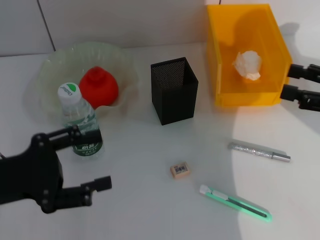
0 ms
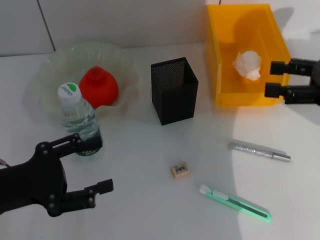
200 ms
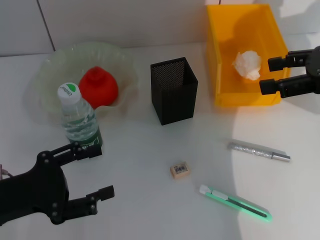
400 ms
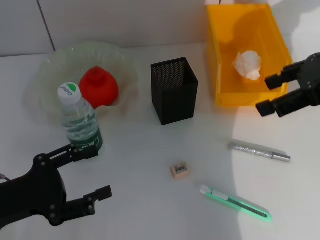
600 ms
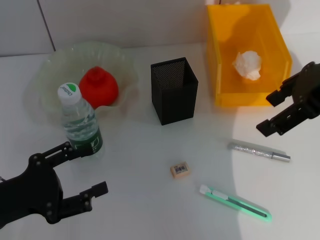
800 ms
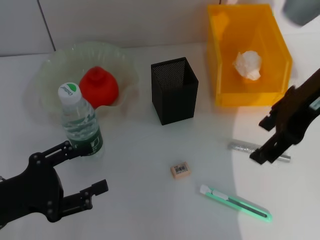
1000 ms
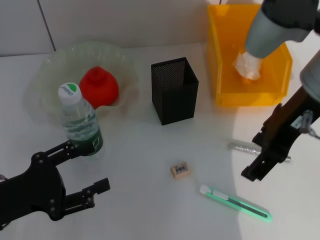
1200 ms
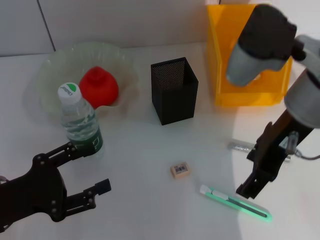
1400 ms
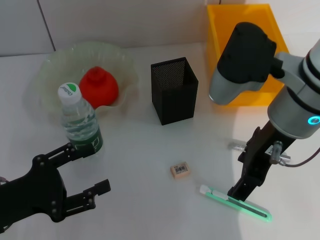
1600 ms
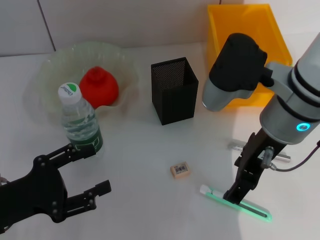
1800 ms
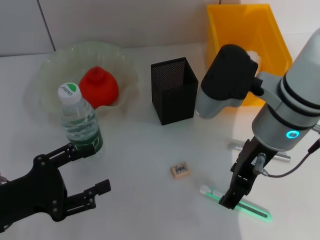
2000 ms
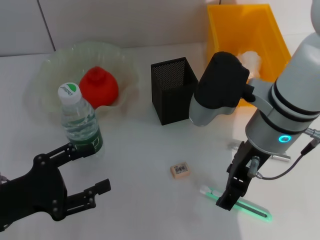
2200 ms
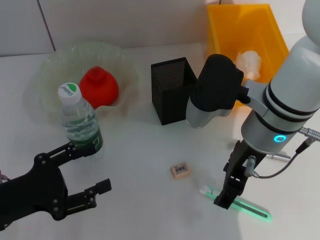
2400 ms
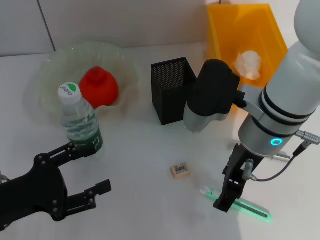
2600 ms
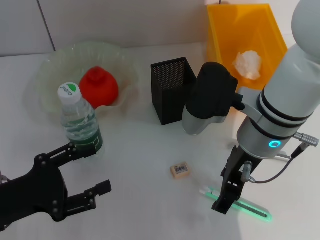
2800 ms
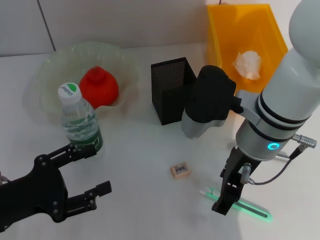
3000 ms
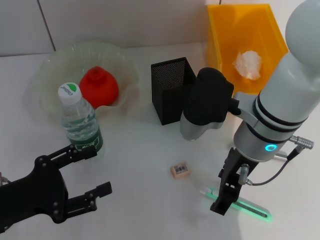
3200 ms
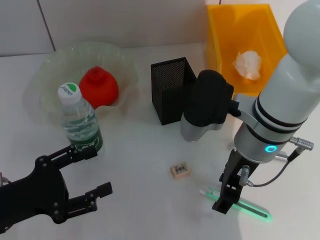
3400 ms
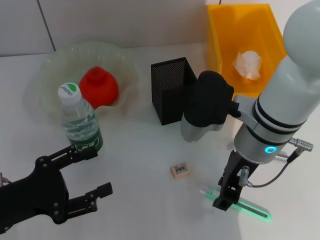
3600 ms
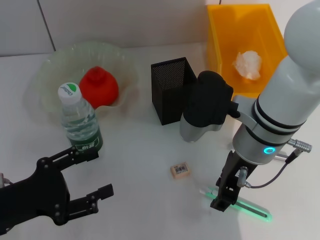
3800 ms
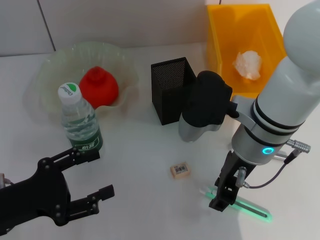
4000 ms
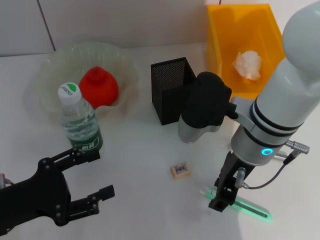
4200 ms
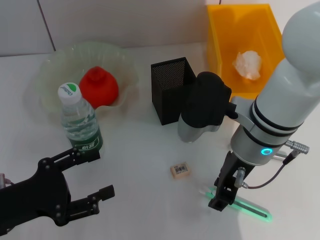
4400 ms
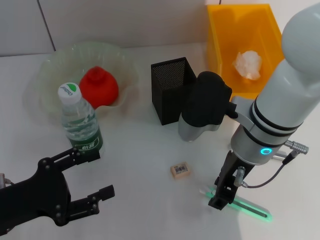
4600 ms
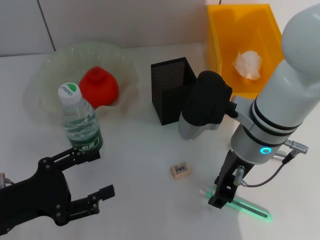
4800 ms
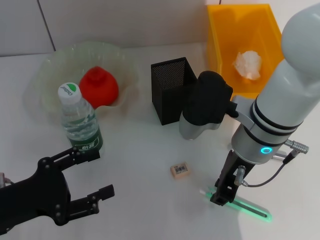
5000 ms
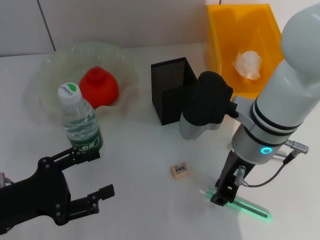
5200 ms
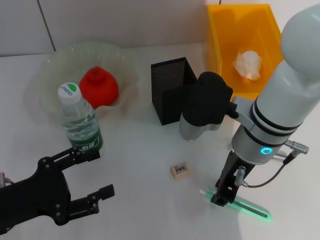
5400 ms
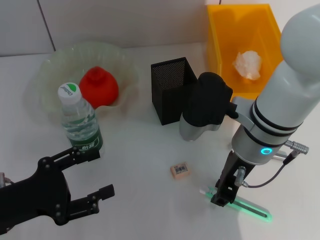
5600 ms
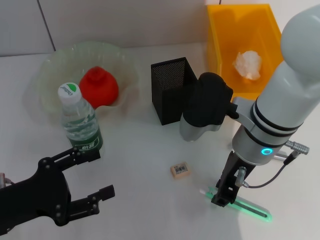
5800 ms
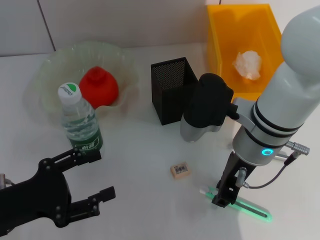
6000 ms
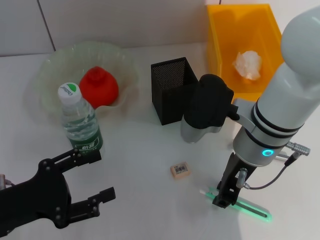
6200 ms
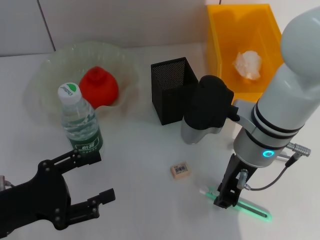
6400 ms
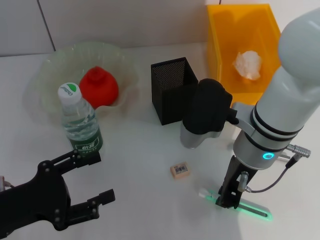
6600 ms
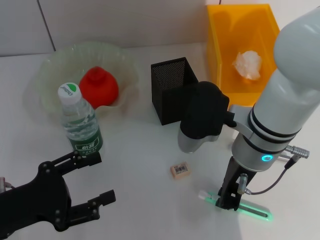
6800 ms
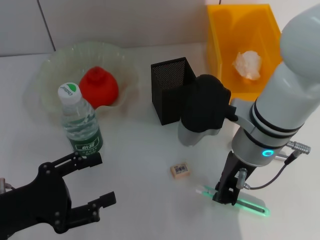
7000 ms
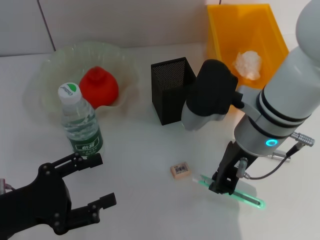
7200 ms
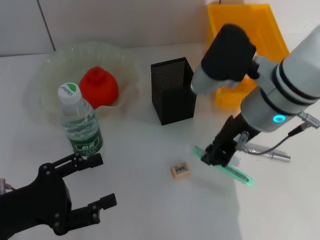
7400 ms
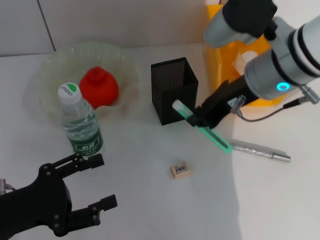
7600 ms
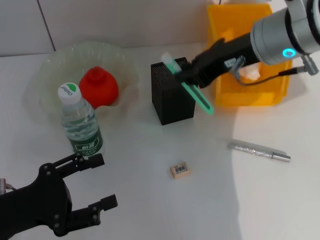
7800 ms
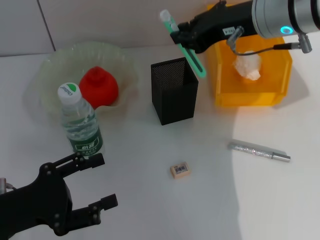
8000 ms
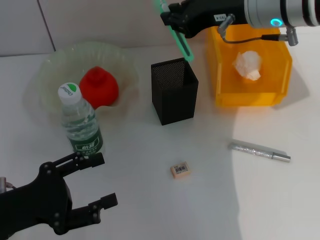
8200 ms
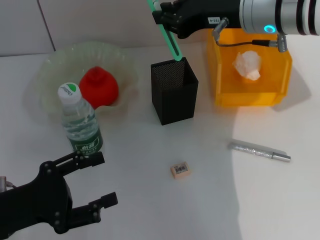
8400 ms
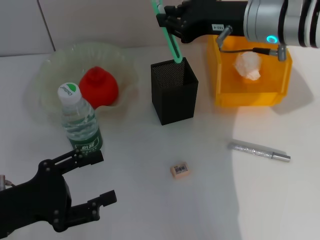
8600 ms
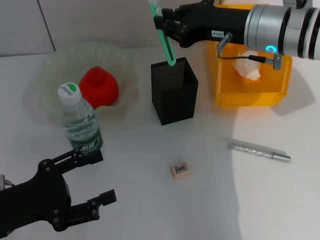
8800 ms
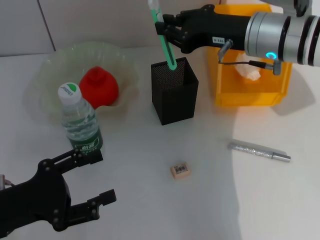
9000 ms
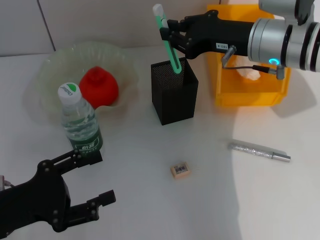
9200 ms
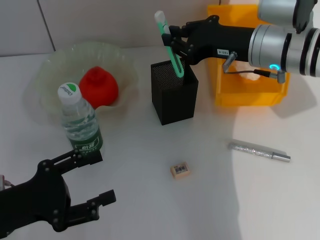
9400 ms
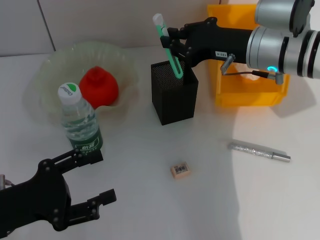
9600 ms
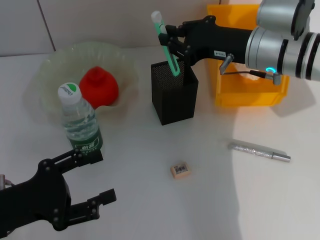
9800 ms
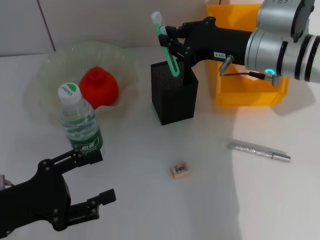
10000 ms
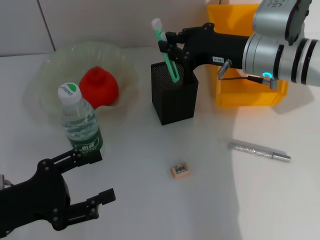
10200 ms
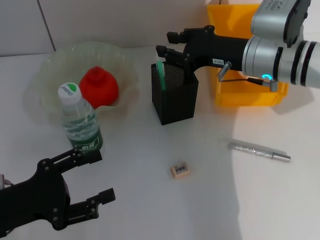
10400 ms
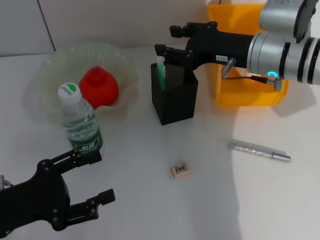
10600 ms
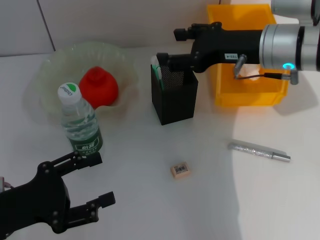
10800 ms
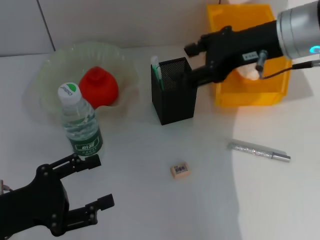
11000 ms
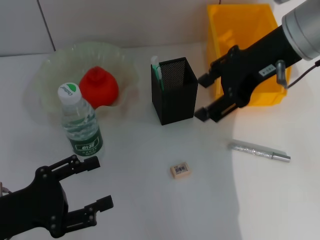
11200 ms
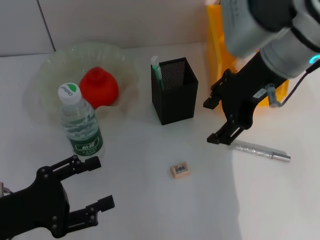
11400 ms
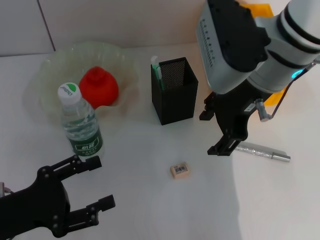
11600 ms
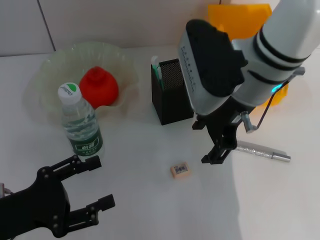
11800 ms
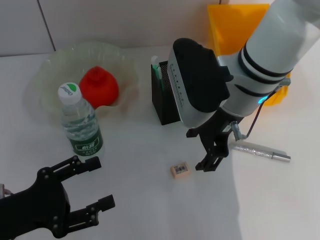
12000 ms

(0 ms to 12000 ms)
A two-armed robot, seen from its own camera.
Step, 0 ms - 6600 ms: Grab the blue utility knife with the right hand.
Step, 6800 ms - 10600 ms: Place the blue utility knife into the pen holder with the right hand.
0 ms - 1600 ms: The right gripper shifts approximately 20 cm to the left, while the left gripper moves downward, some 5 cm.
1600 ms - 3000 ms: The right gripper is displaced downward by about 5 cm.
3000 ms - 4400 ms: Neither gripper changes place.
4400 ms - 6000 ms: Neither gripper changes place.
6000 ms - 7600 ms: The right gripper shifts roughly 10 cm upward.
7600 ms - 9000 ms: The right gripper moves some 5 cm.
9000 ms - 10400 ms: The grippers move only a little.
10400 ms - 12000 ms: The right gripper travels to the left by about 10 cm, moves about 10 cm upward and comes back, and opens up.

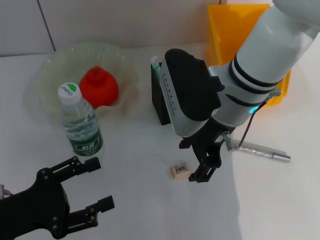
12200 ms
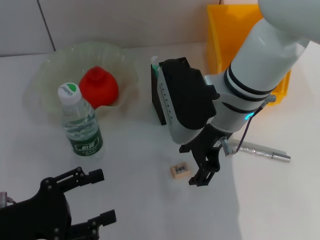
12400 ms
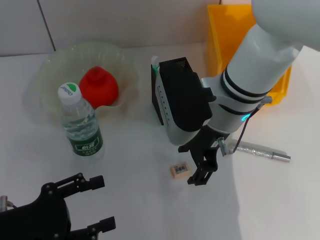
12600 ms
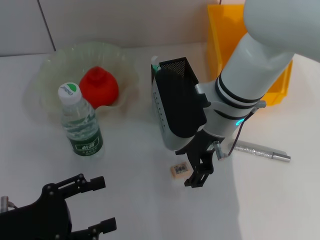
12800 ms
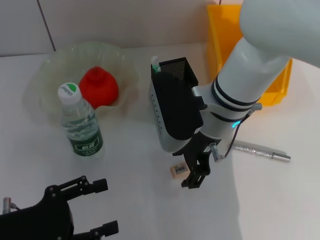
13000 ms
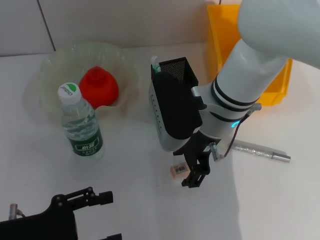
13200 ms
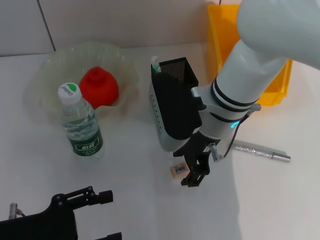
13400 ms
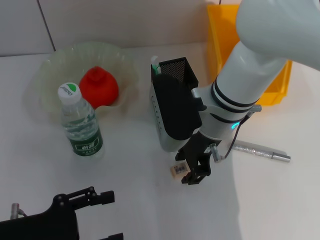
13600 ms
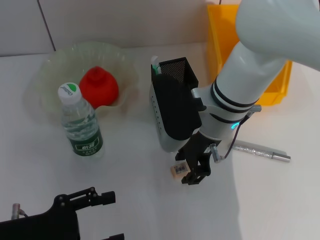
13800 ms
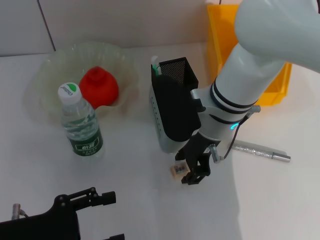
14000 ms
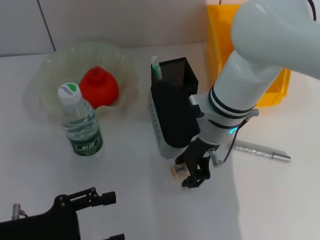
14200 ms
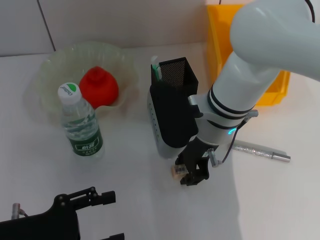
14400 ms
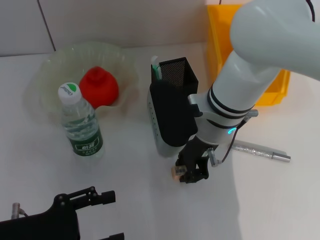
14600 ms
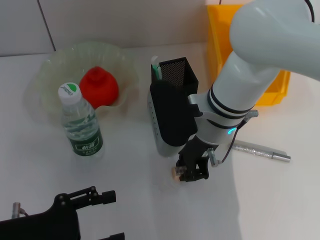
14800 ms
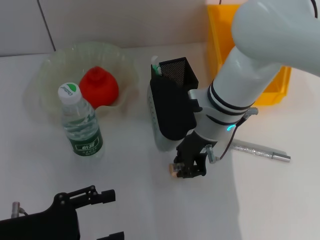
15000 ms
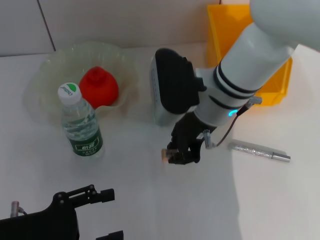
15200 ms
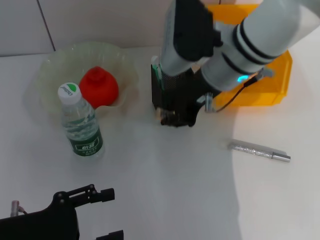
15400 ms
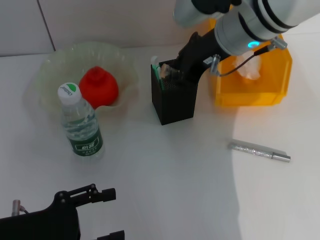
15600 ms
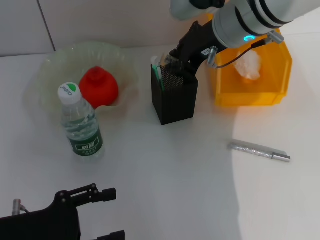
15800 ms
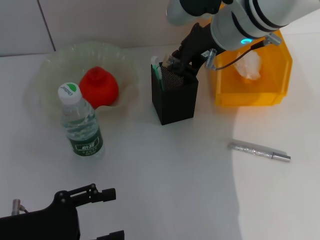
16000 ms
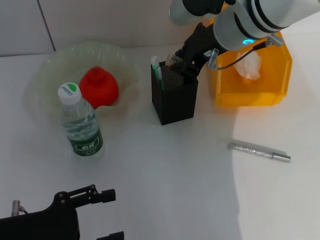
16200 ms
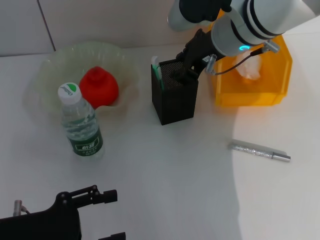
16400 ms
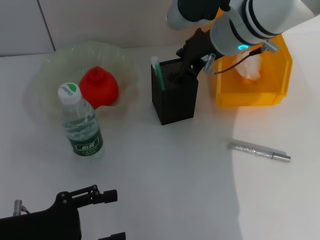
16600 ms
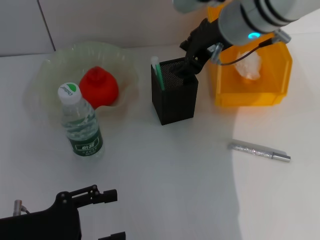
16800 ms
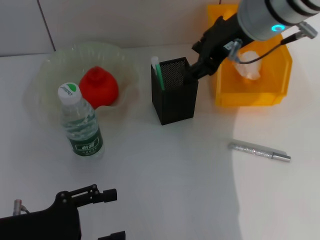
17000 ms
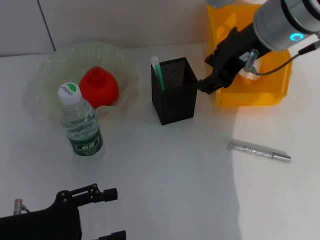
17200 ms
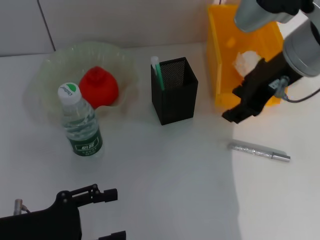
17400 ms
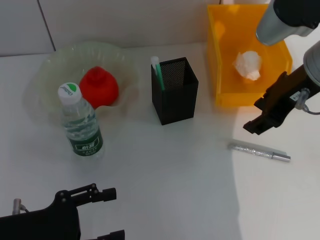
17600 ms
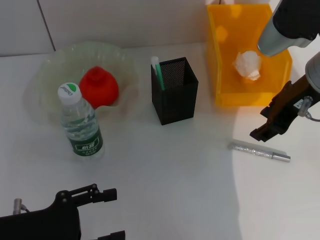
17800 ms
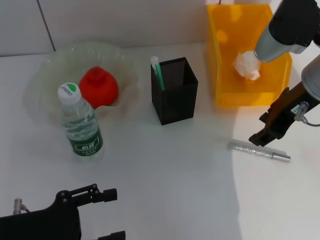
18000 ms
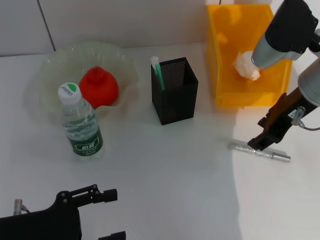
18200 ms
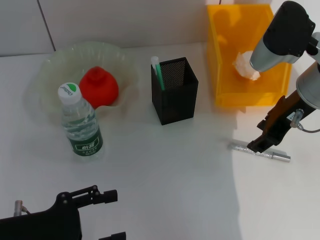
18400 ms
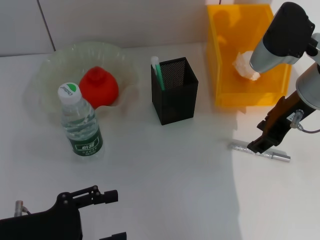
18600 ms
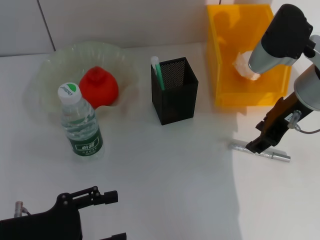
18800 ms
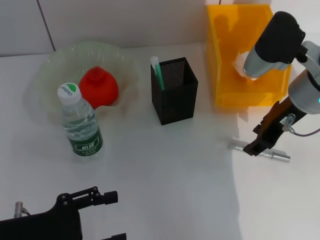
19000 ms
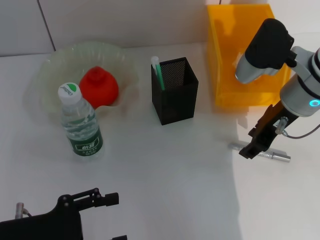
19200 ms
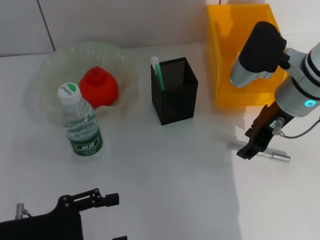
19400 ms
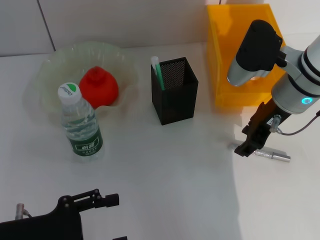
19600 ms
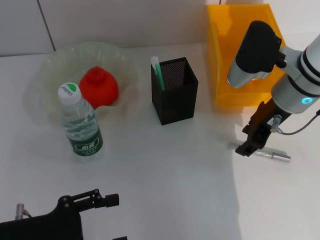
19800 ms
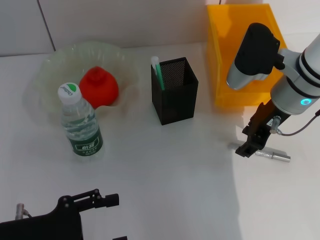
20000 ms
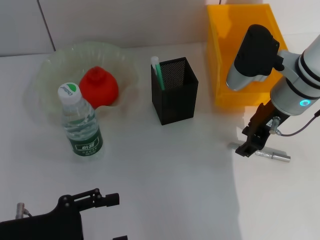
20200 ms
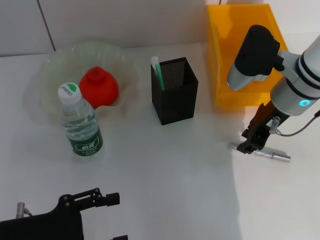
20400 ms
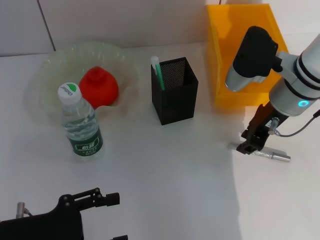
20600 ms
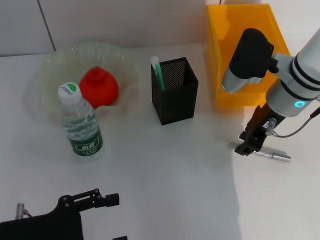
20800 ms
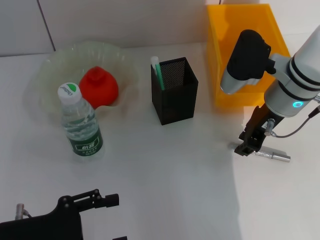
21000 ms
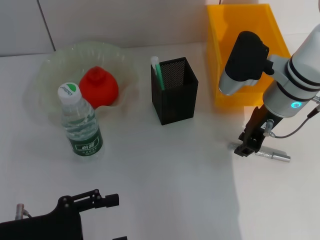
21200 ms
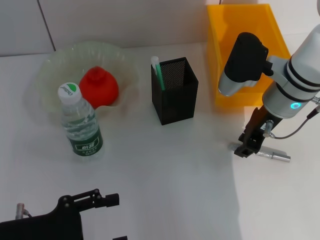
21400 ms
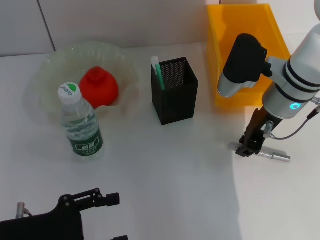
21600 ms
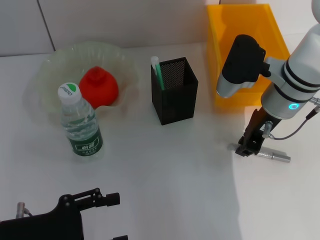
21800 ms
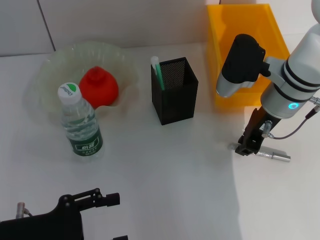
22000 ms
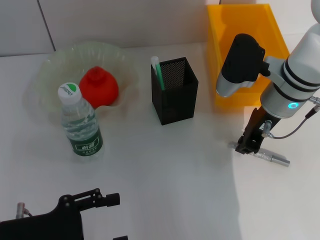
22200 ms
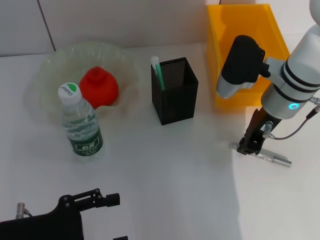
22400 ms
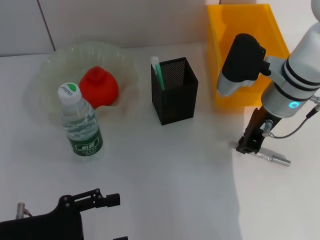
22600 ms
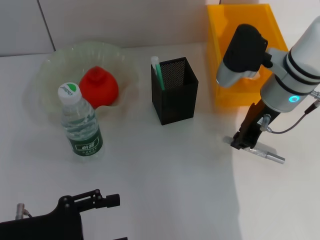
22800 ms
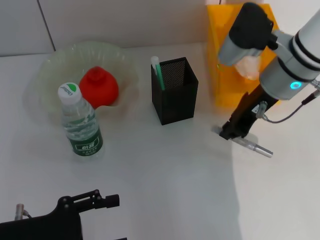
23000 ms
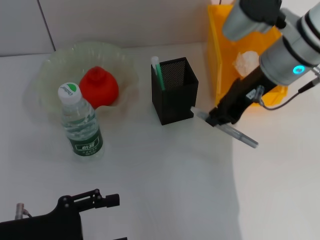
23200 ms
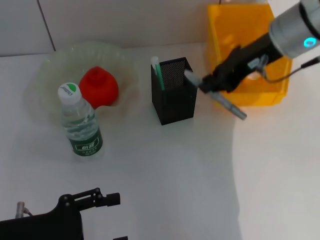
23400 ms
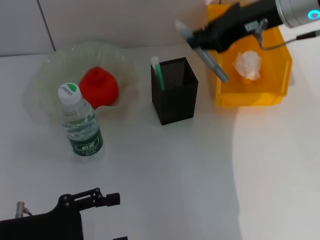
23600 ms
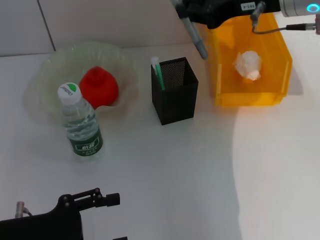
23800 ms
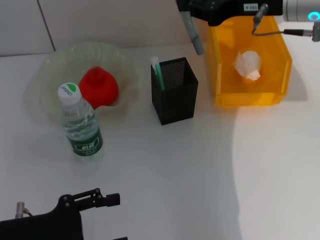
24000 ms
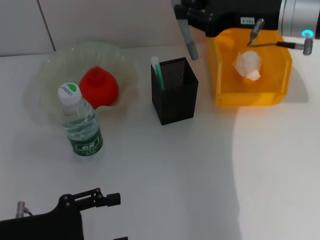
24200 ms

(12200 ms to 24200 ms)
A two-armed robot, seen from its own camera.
Step, 12200 ms - 14600 ms: Grab the eraser with the right hand.
Step, 14800 ms - 16600 ms: Put the eraser into the pen holder with the right hand.
Step, 16800 ms - 22400 ms: Grab the gray glue with the right hand.
12200 ms - 13800 ms: The grippers move only a little.
13800 ms - 15200 ms: The right gripper closes up.
15200 ms - 16600 ms: The right gripper changes place by some 5 cm.
16600 ms - 18200 ms: The right gripper shifts approximately 10 cm to the right and backward.
18200 ms - 19800 ms: The right gripper ends up roughly 5 cm from where it was.
19800 ms - 21200 ms: The grippers stay close to where they were, moving slightly.
21200 ms - 22600 ms: The two grippers keep their place.
22600 ms - 24200 ms: The right gripper moves upward, roughly 10 cm.
